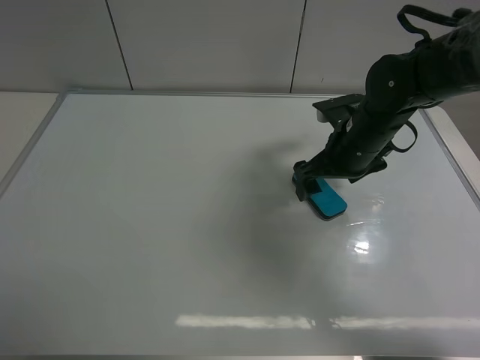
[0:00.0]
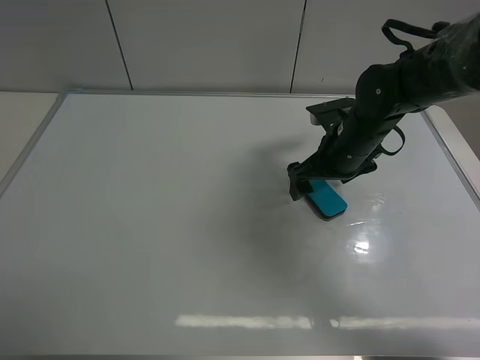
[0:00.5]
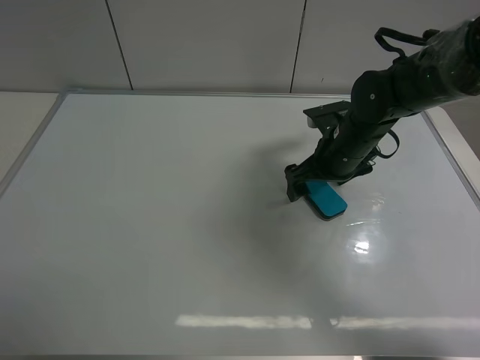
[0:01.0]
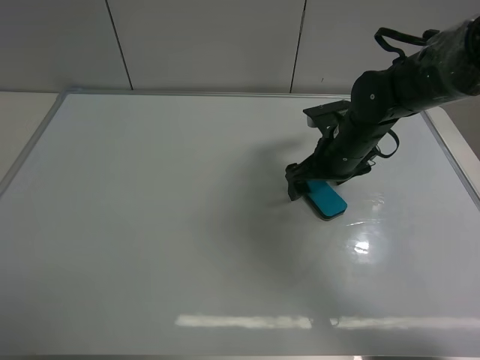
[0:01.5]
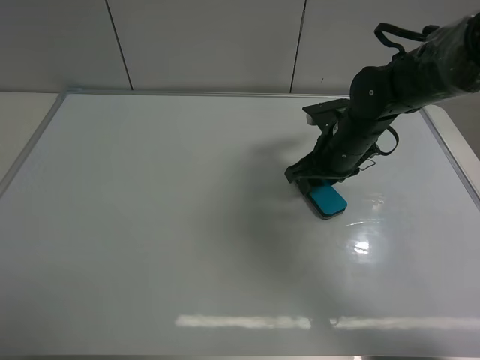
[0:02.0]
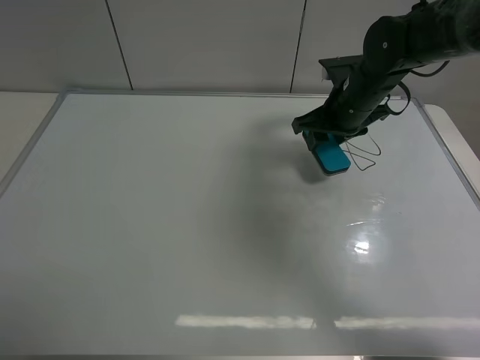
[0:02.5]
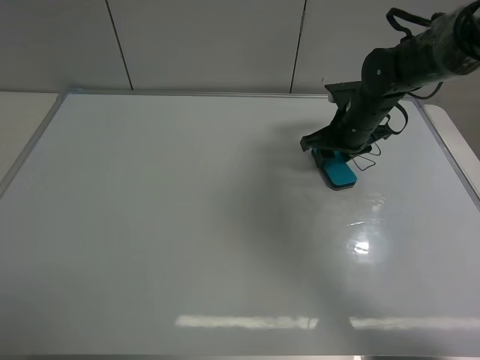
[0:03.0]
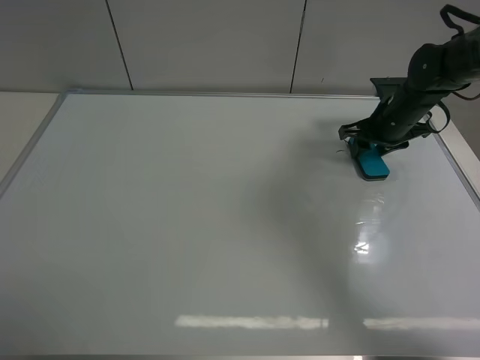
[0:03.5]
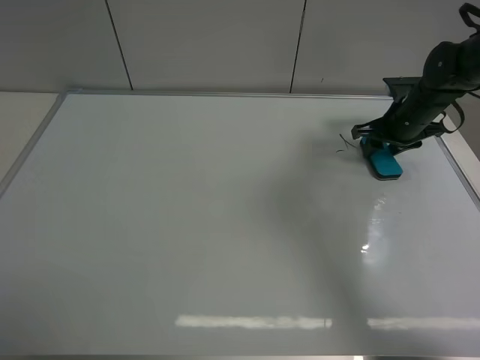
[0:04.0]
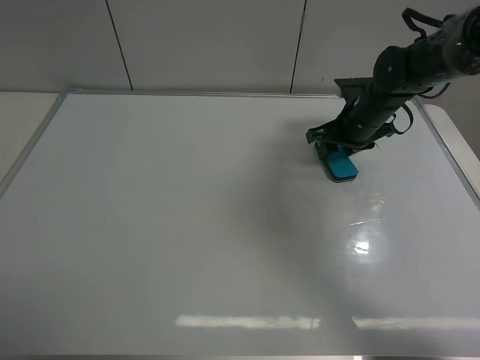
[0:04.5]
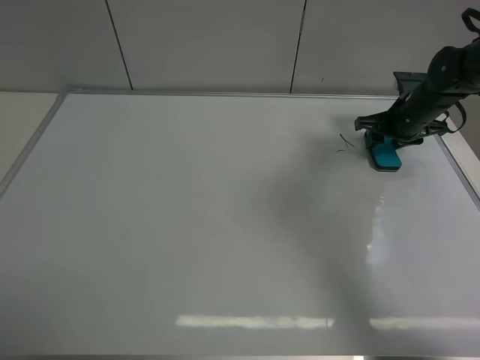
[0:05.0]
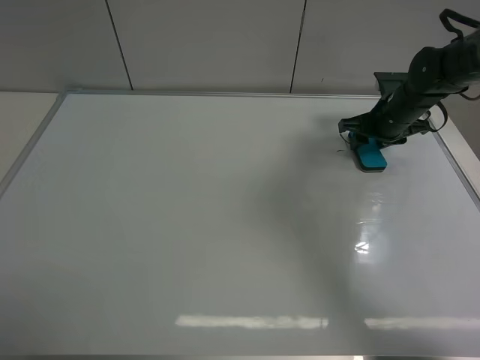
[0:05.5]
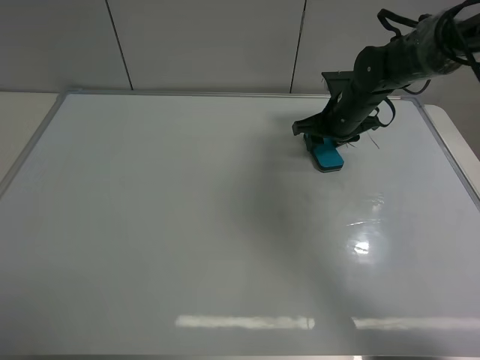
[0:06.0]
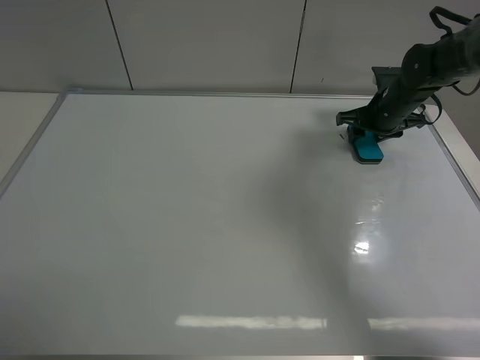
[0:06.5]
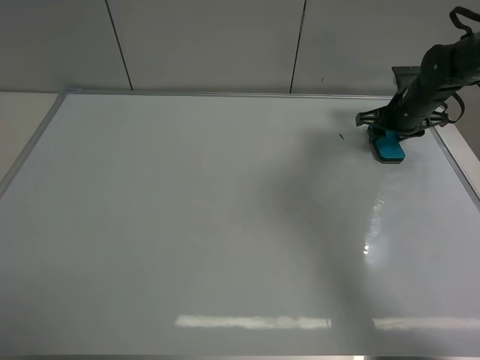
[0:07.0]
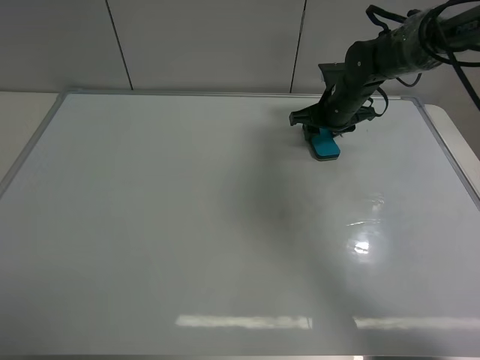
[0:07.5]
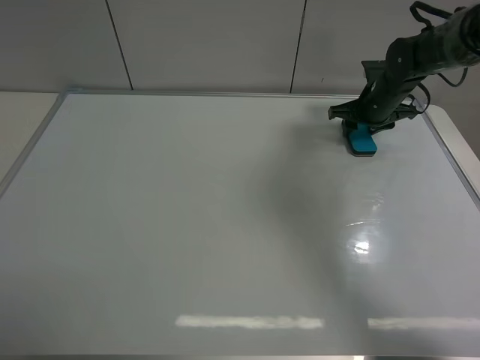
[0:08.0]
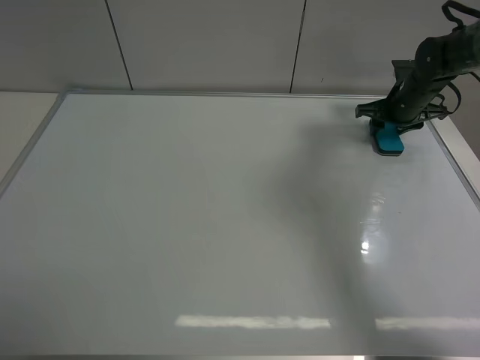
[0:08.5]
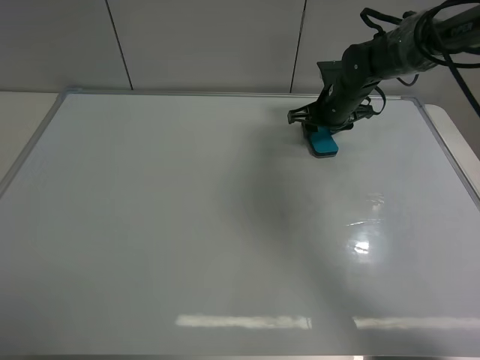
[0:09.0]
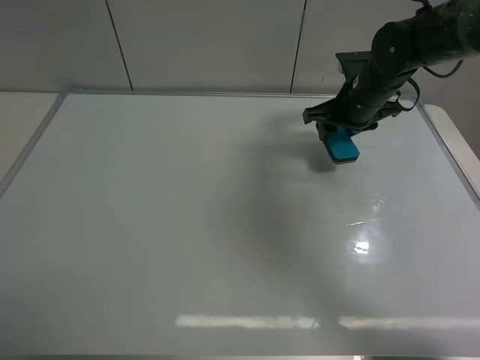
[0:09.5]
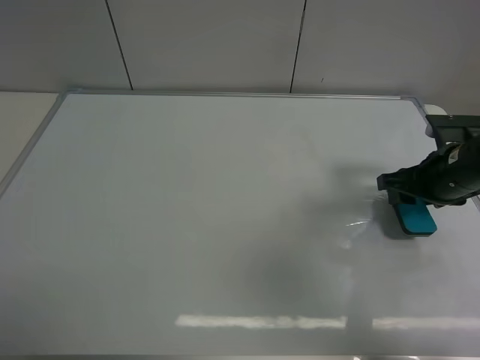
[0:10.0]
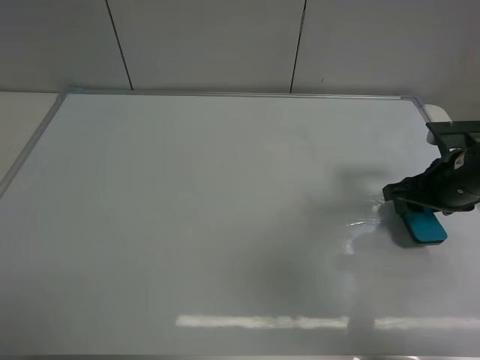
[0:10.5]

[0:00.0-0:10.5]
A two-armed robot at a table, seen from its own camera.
Task of the whole recording: use the left gripper to place the eraser in the right, use the right gripper to pick up the eraser, wipe the notes on the whiteboard clean, and then put it down.
Step, 0:00.0 to 0:02.0: Pick up the board eraser with right gripper.
Step, 0:00.0 to 0:09.0: Wipe off the writing on the board with right gripper.
0:00.0 to 0:02.0: The right gripper closes its fingers.
0:02.0 to 0:04.0: The right gripper goes about 15 cm to the right and forward.
0:04.0 to 0:06.5: The right gripper moves left and right over roughly 10 cm, changing direction 3 times.
0:06.5 to 0:08.5: The right gripper reaches some 10 cm to the left, then returns.
0:08.5 to 0:10.5: The right gripper travels backward by roughly 20 cm.

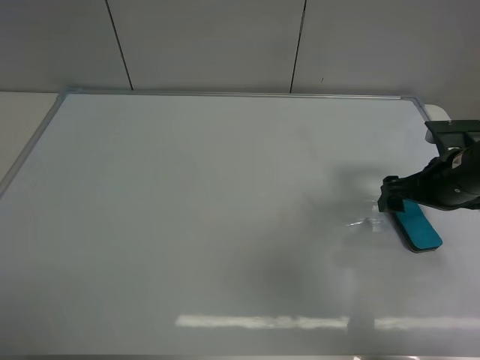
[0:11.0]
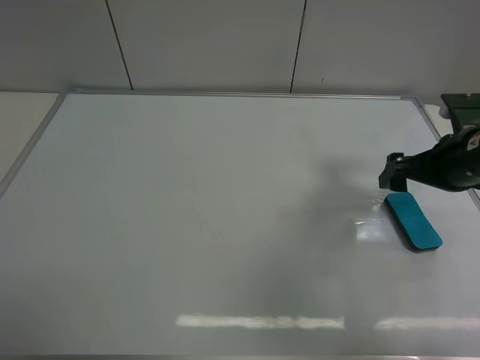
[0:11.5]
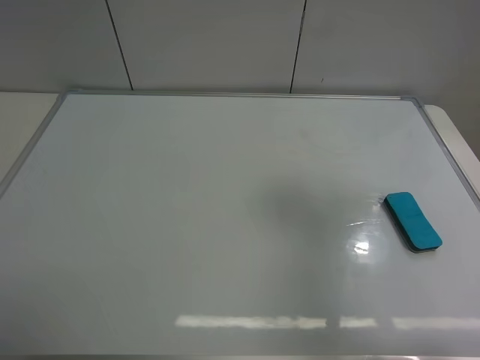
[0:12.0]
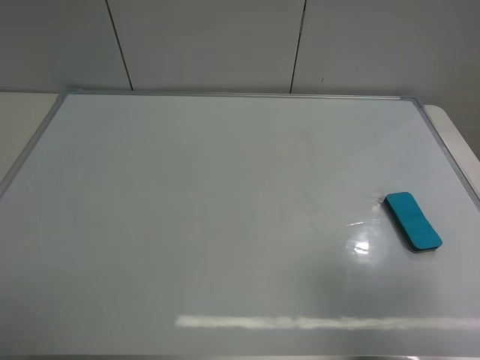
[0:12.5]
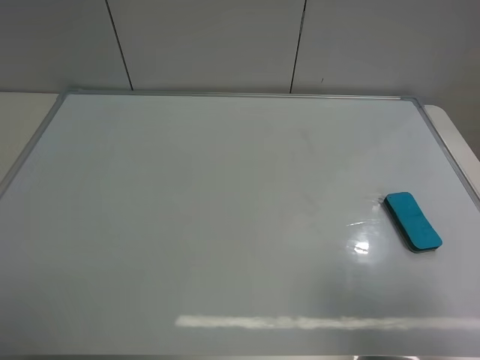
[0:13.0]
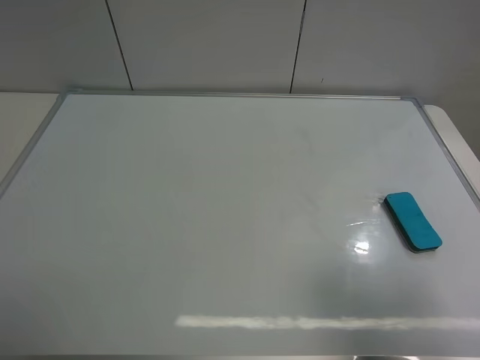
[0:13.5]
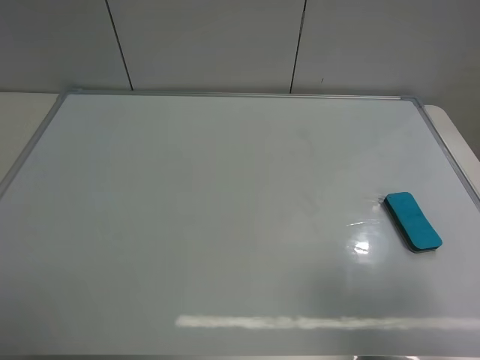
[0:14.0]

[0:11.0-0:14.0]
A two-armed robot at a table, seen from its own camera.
Task of the whole recording: use the left gripper to place the eraser in the right, use the right gripper to pick up the eraser, wipe the notes on the whiteboard clean, and then put it down.
0:11.0 to 0:12.5: The right gripper travels backward and upward by about 30 cm.
